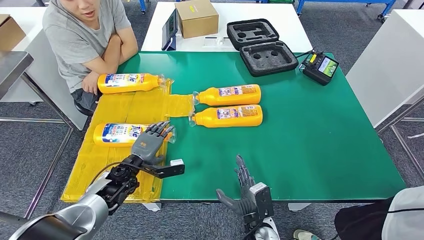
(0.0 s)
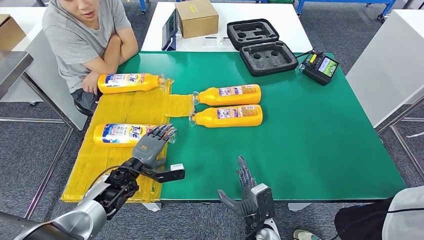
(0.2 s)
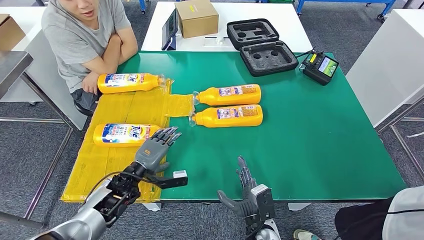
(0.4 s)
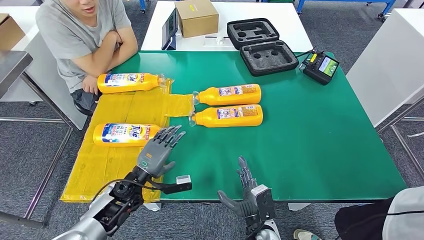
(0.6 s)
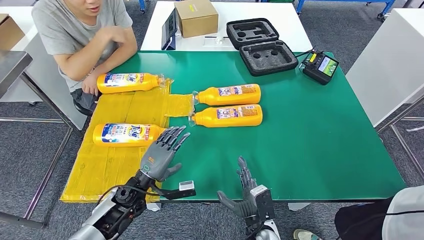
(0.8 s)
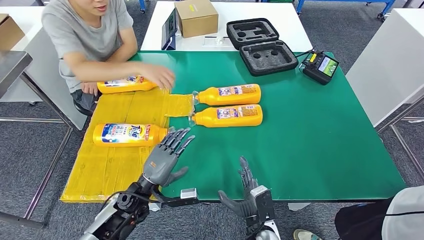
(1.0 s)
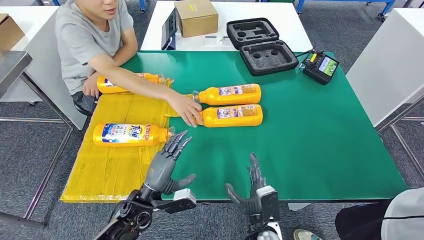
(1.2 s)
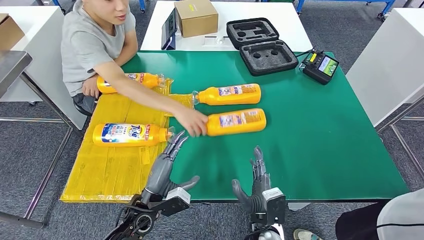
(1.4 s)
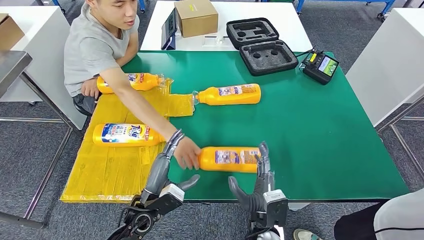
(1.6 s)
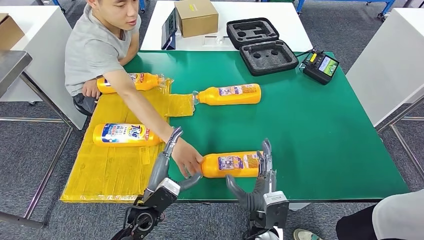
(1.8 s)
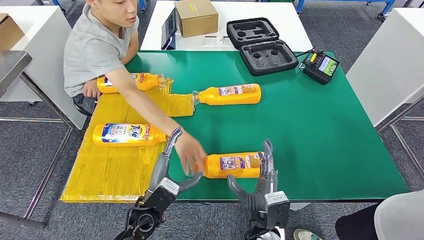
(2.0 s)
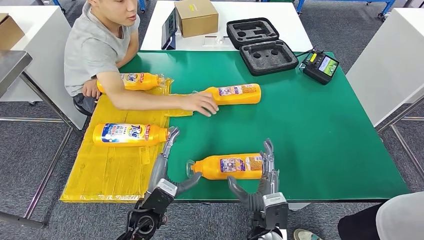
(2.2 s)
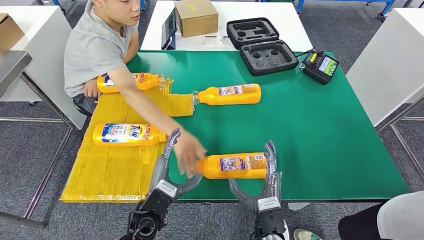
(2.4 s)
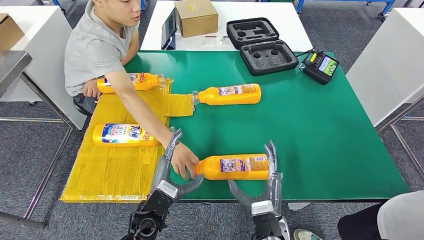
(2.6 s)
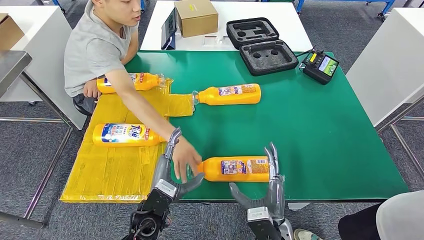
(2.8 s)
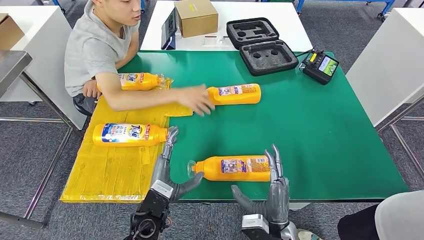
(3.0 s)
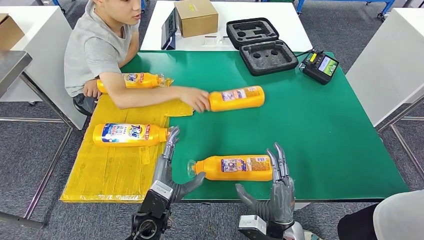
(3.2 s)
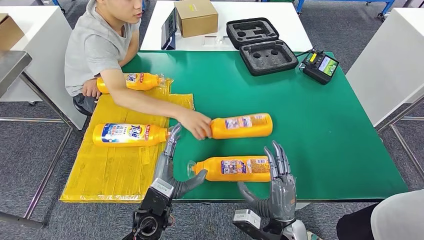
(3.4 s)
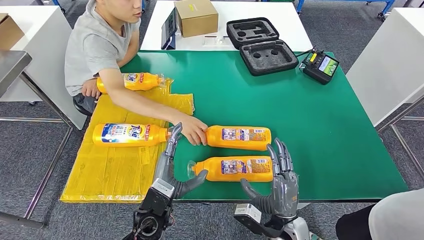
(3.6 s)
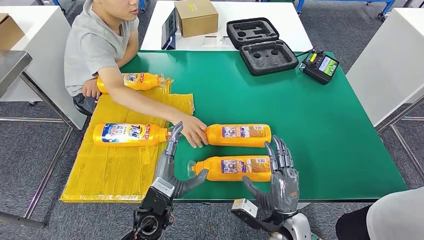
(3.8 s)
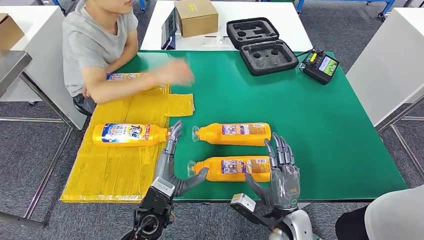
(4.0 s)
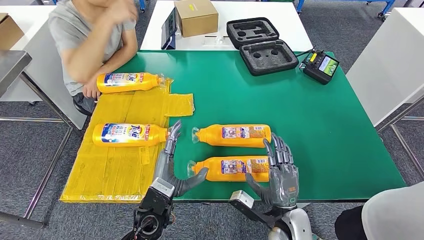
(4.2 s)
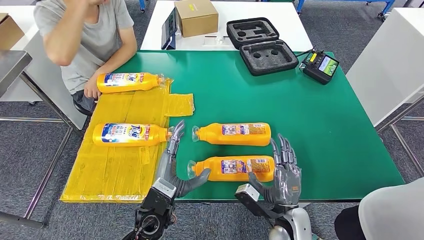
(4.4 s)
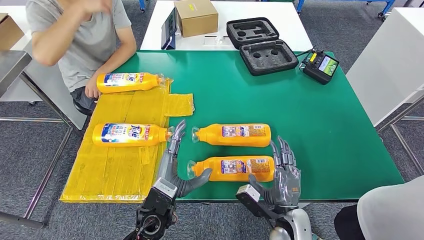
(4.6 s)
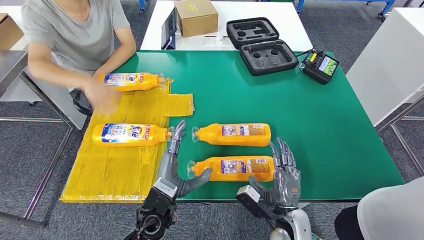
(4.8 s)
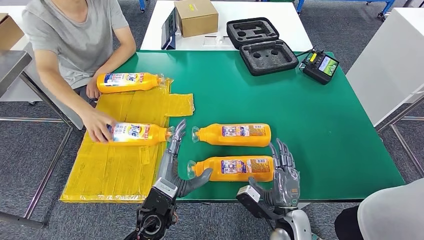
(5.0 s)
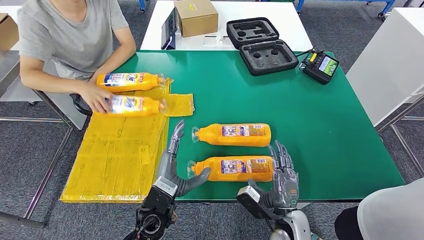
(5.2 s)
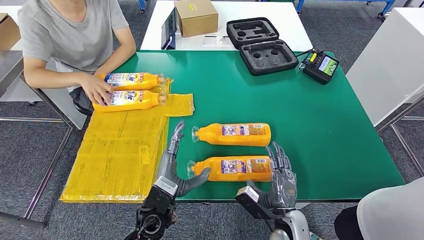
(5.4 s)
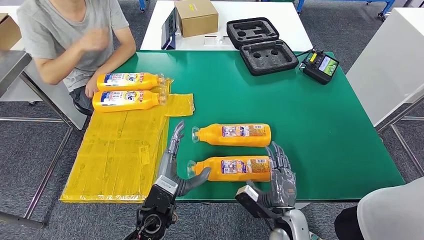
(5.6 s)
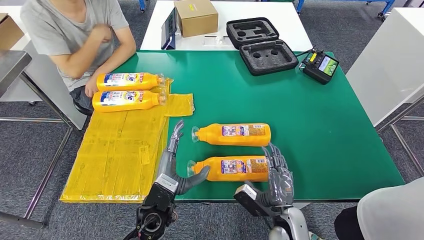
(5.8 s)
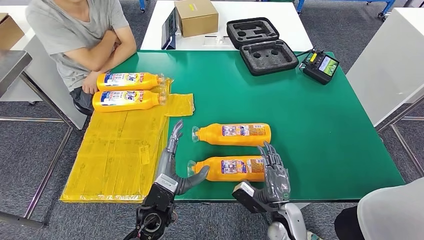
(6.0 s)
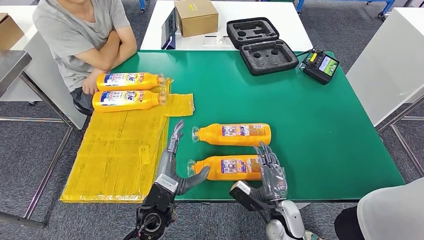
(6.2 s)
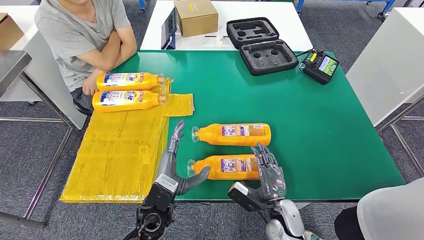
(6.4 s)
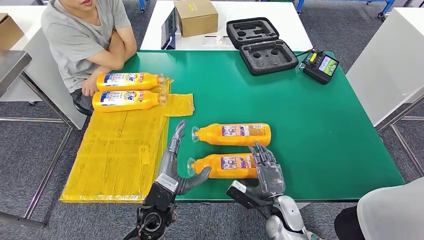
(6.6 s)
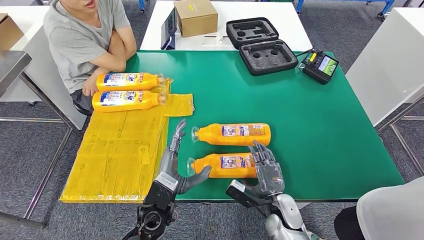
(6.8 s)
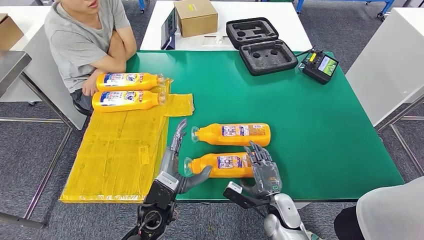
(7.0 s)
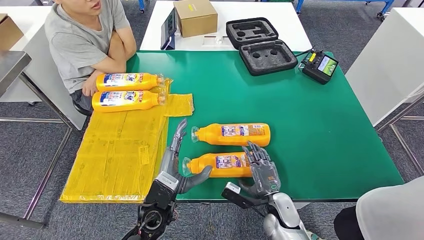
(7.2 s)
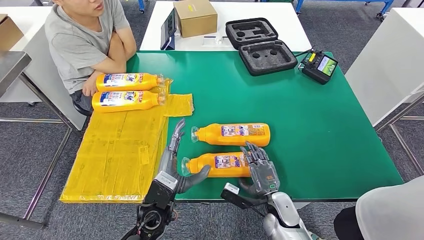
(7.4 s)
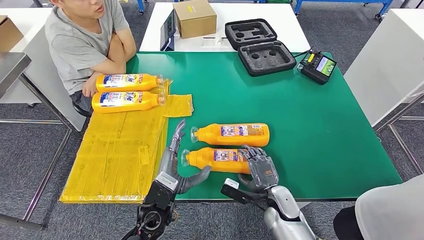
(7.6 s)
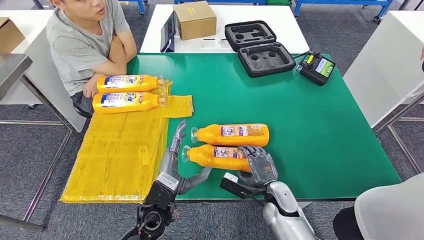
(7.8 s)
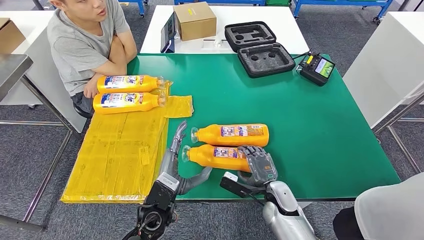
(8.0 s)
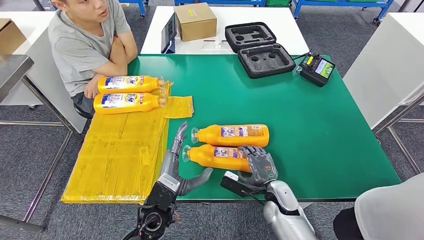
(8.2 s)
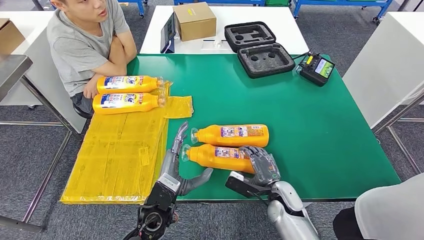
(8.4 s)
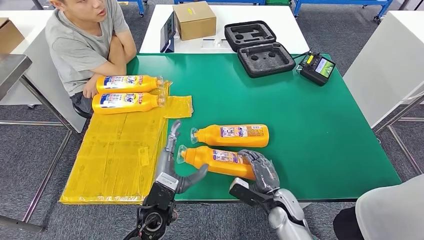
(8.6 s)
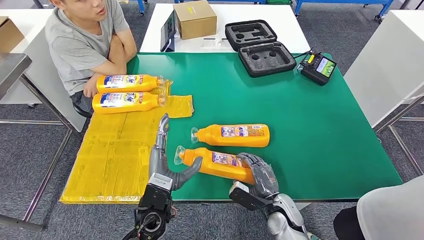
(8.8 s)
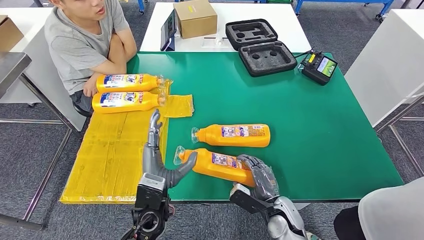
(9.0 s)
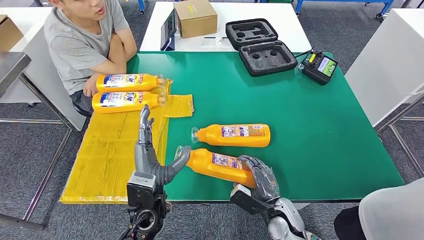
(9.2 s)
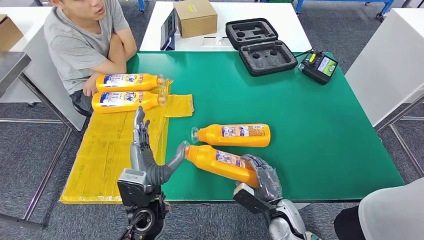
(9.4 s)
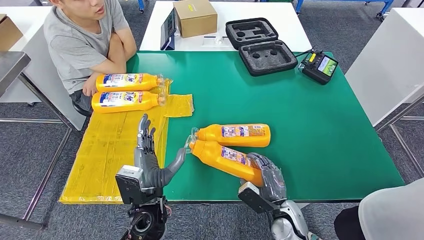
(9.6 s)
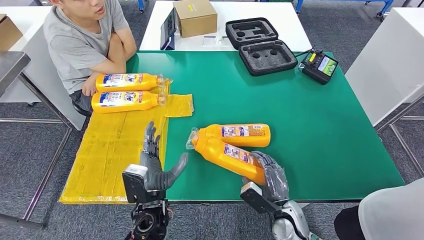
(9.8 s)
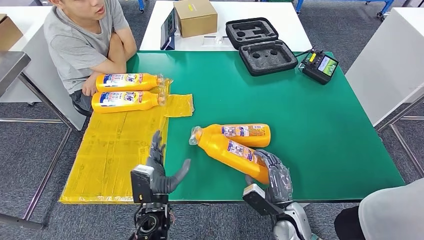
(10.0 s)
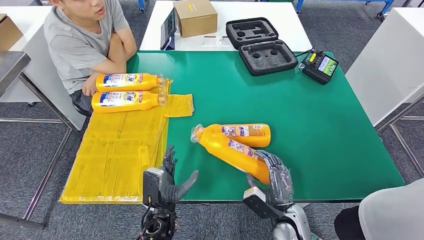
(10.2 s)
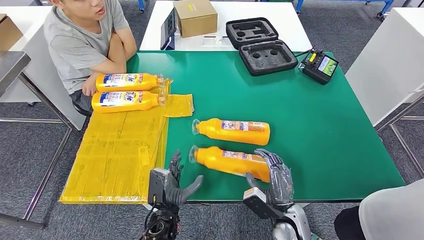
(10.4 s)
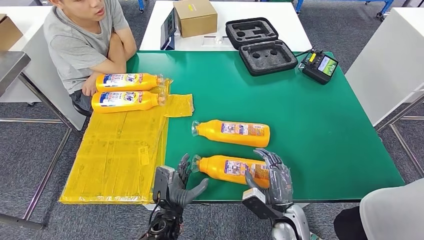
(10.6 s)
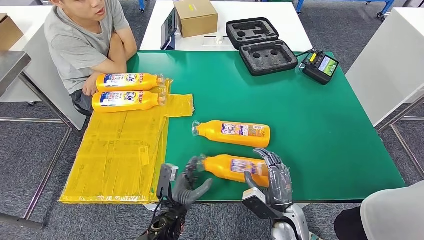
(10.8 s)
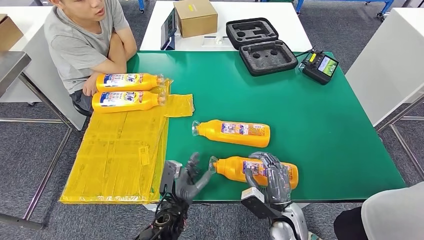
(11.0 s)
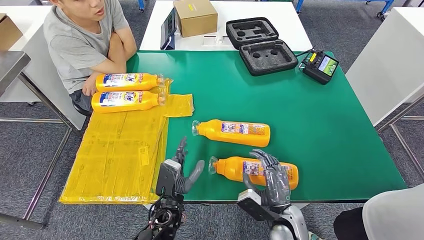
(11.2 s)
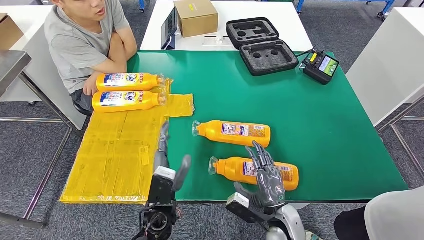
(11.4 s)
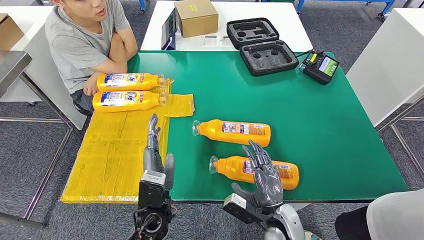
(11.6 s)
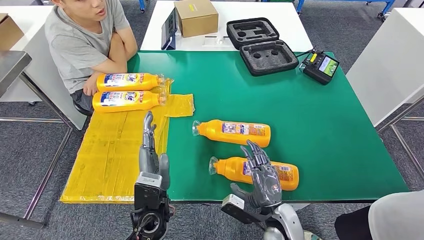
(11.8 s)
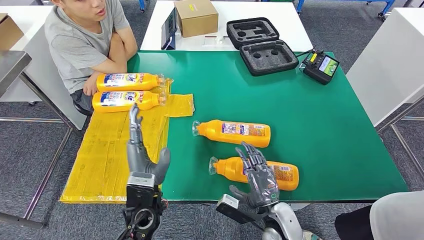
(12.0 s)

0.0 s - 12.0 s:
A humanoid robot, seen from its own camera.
4.4 s - 6.0 s: The hands move only a little.
6.0 s - 7.6 s: The right hand moves about 5 cm.
9.0 s - 10.4 s: The left hand heads downward, covering approximately 10 cm.
10.4 s - 12.0 s: The left hand shifts approximately 10 cm upward.

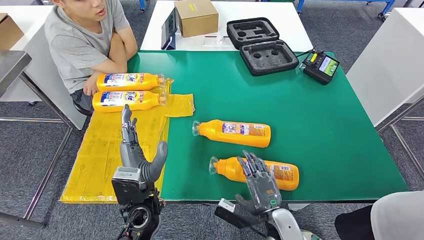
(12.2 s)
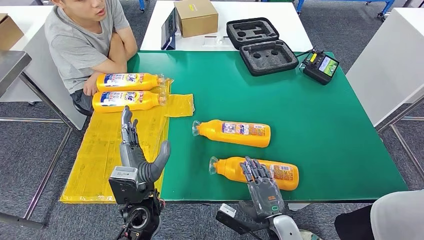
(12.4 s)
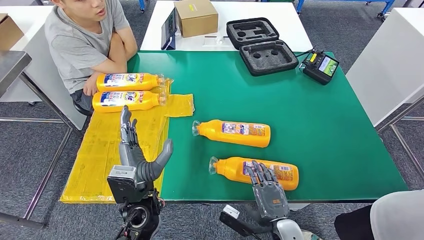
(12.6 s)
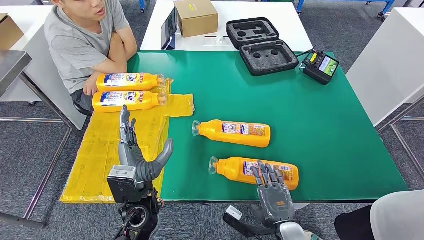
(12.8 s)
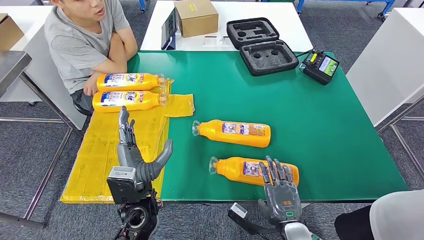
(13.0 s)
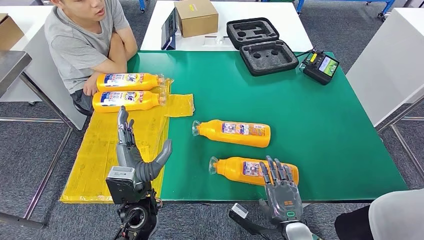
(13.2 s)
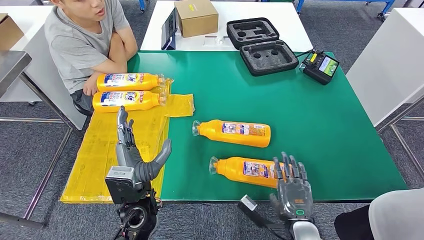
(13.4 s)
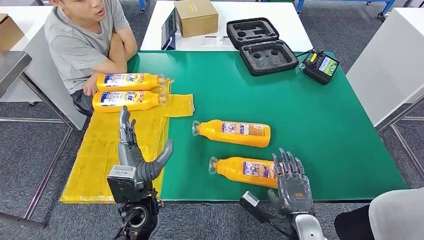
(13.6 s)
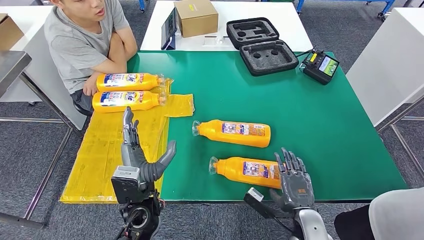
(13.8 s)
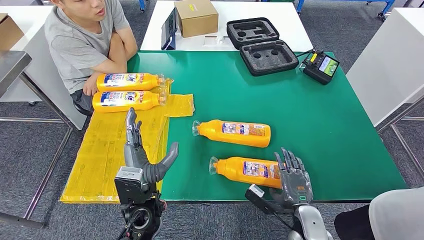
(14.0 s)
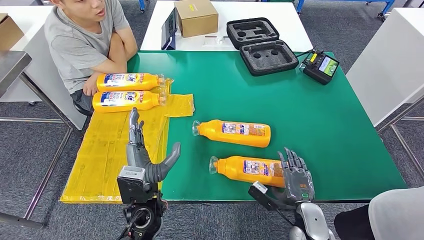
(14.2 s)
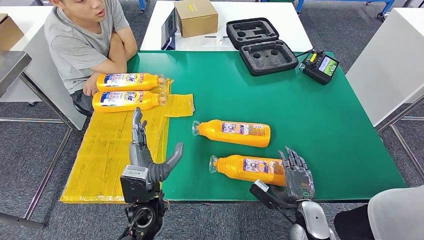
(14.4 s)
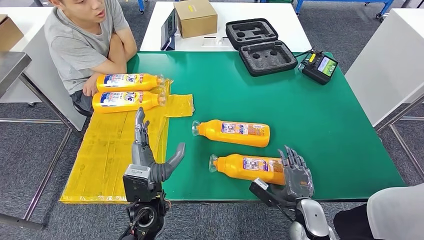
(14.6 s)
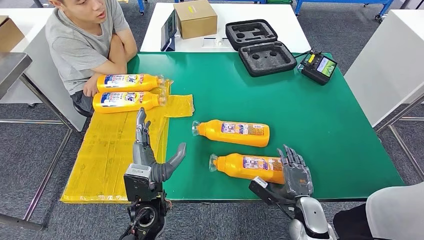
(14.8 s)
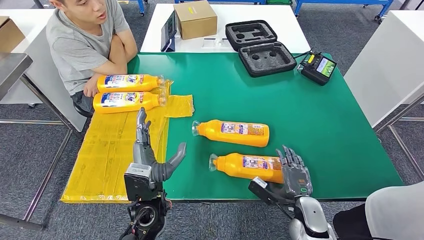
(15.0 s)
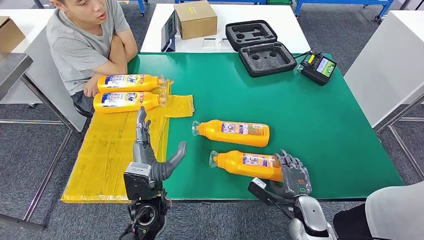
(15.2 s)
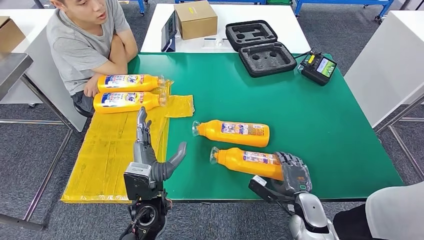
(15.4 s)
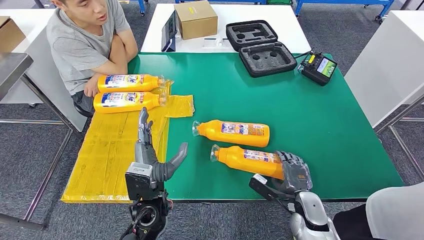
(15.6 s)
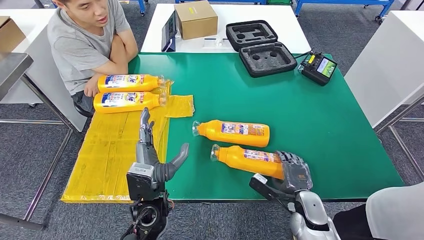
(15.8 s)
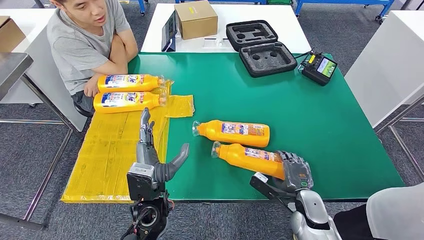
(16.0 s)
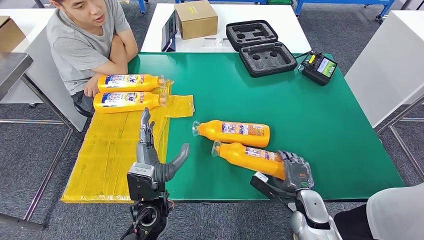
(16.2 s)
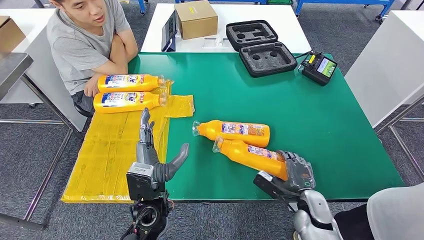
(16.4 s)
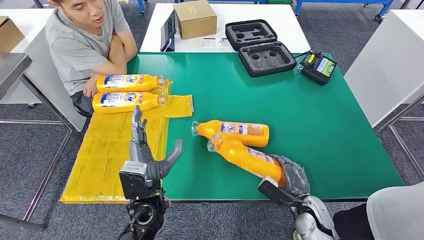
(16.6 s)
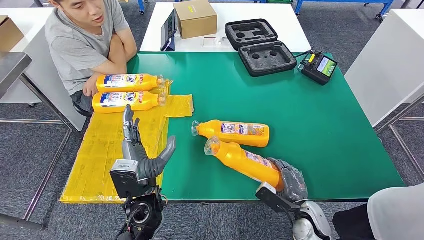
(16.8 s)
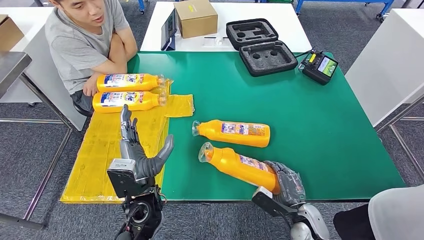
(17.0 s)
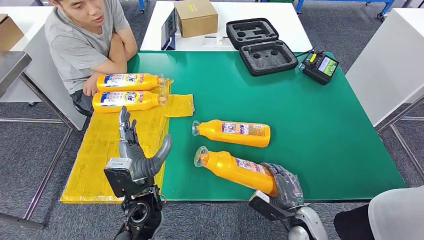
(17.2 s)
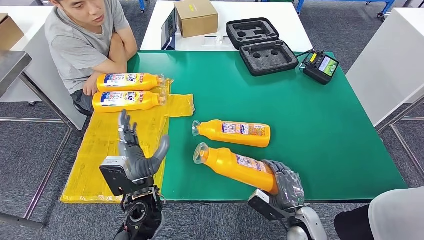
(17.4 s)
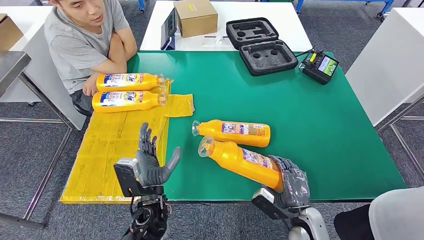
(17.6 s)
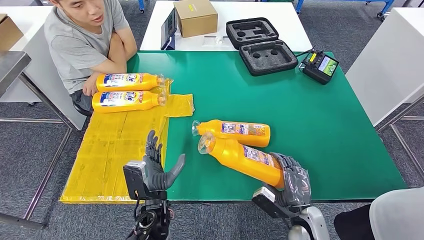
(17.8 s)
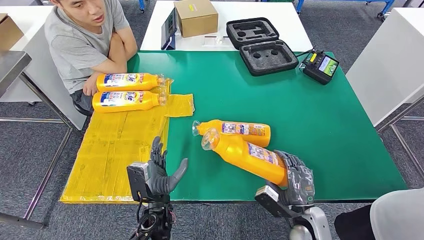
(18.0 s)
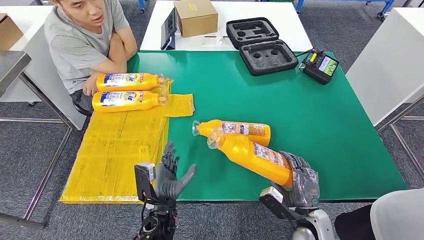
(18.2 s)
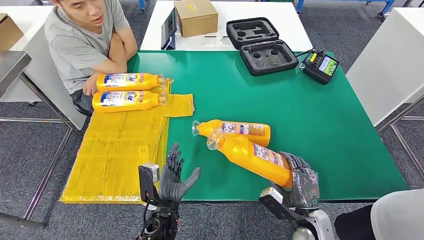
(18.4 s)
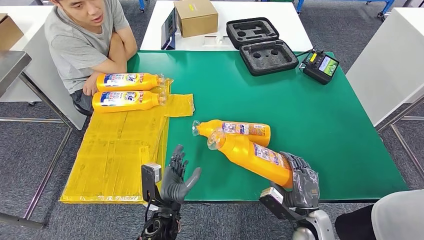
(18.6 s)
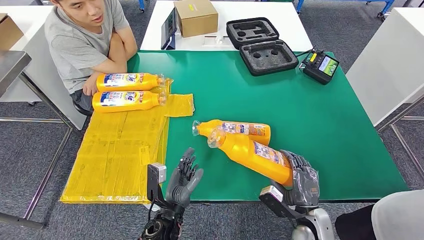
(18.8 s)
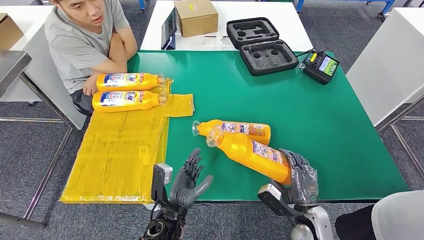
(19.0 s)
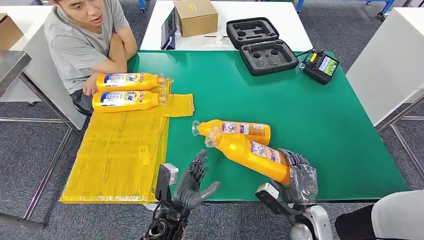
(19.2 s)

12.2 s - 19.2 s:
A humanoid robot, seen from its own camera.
12.2 s - 13.6 s: The right hand moves to the right, approximately 5 cm.
13.6 s - 15.0 s: The right hand moves some 5 cm.
15.0 s - 16.4 s: The hands make only small movements.
16.4 s - 17.8 s: The left hand travels downward by approximately 5 cm.
